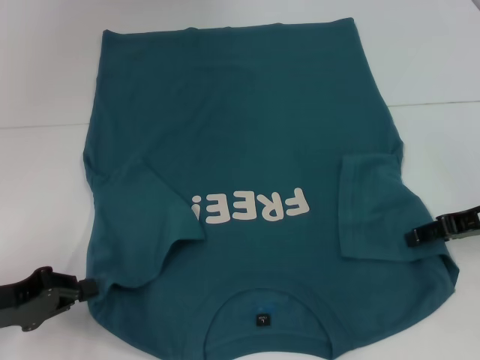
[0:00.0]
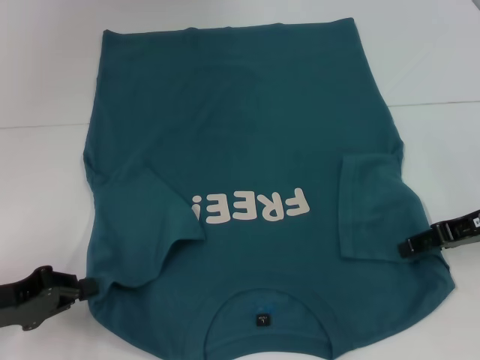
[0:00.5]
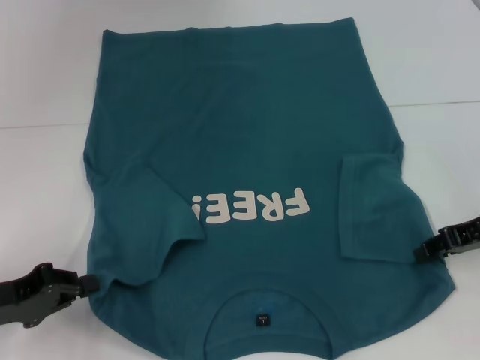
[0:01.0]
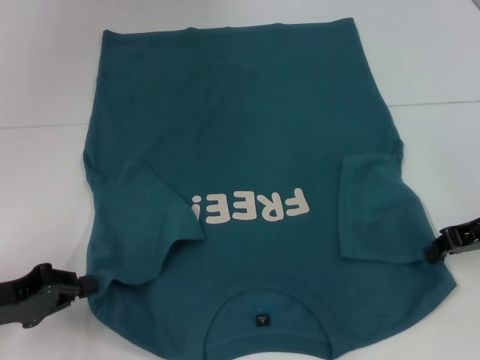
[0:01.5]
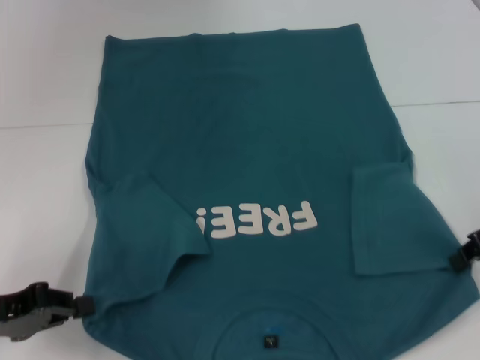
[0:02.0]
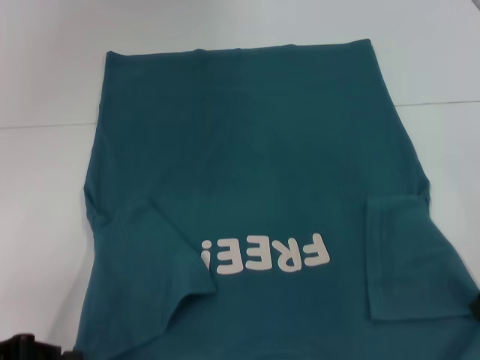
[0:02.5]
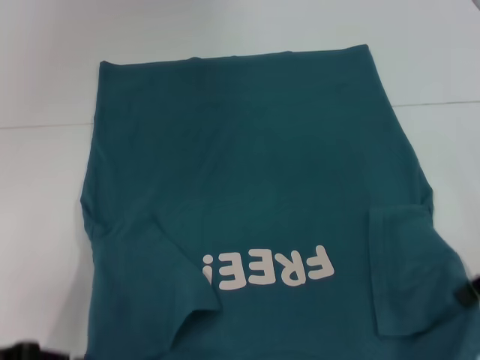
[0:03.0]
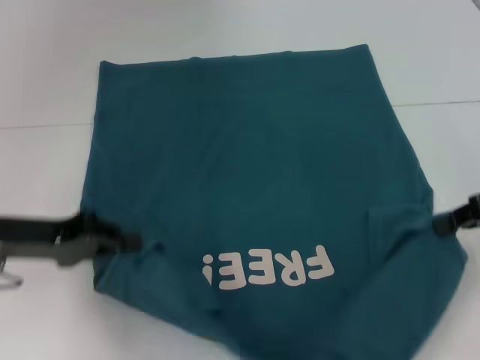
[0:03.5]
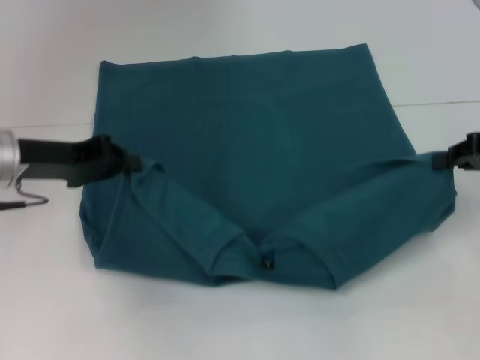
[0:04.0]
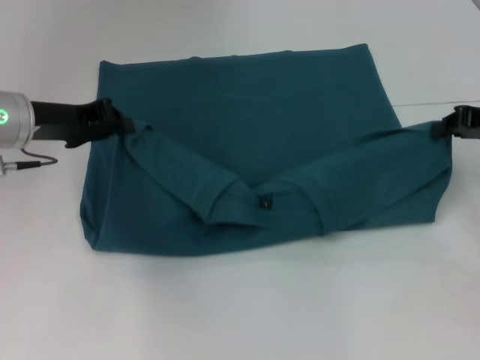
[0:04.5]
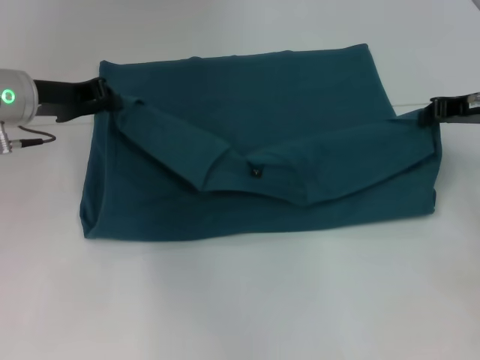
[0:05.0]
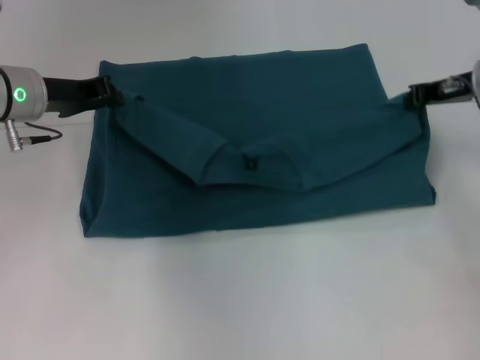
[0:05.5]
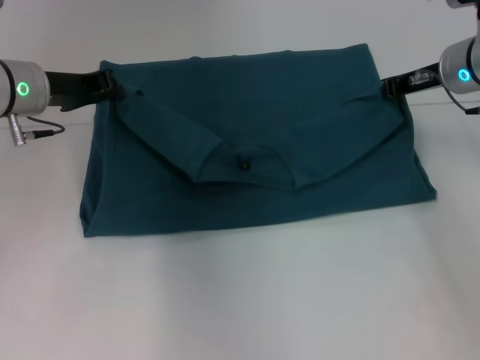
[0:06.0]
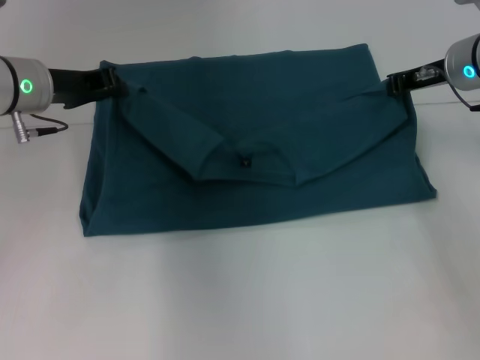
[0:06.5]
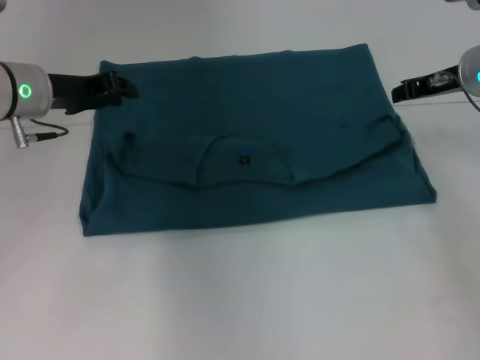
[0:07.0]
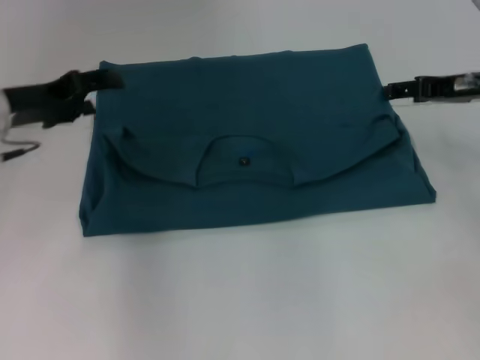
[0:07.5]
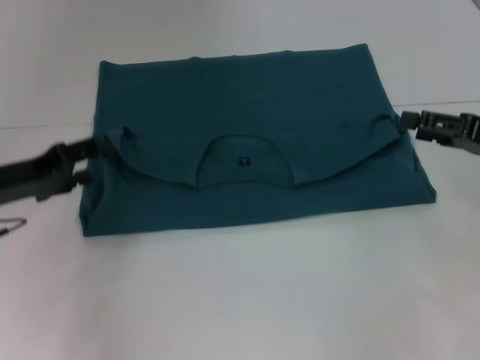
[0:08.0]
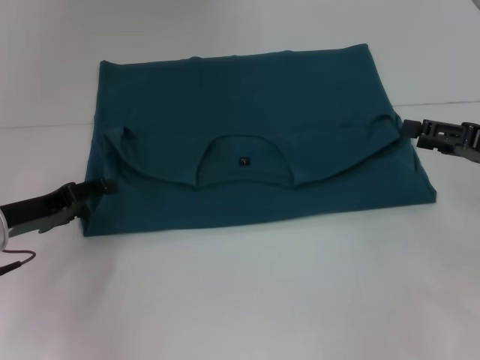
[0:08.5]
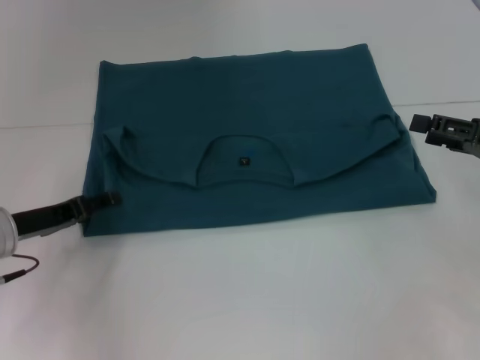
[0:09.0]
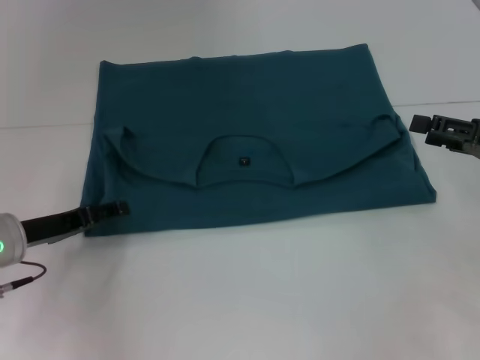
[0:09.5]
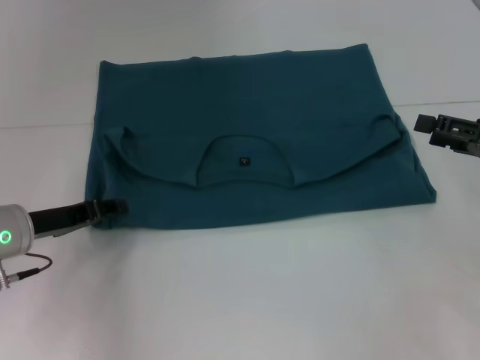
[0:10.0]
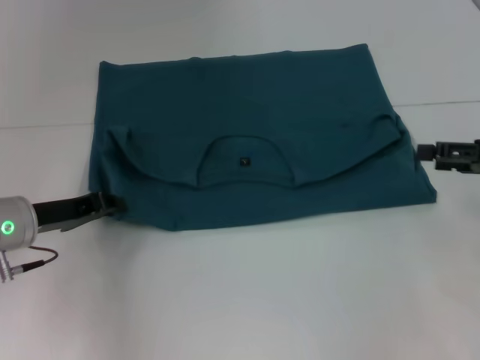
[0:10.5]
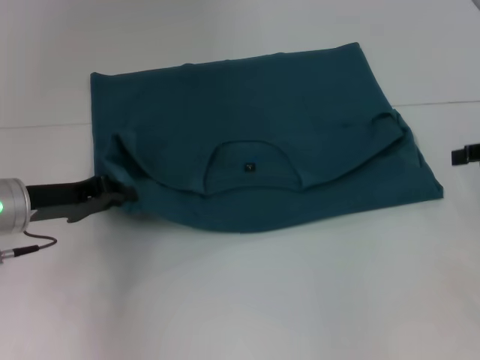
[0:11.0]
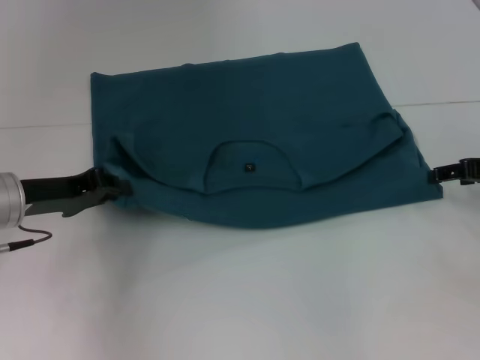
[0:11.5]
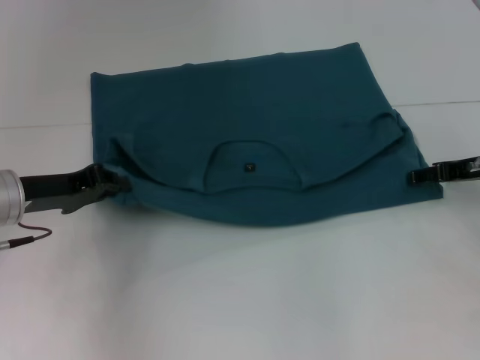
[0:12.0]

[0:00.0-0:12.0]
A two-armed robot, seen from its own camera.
Step, 2.0 to 6.5 s: Fold the clothes to the left.
Step, 2.0 to 6.5 s: Fold the clothes to the right.
0.0 to 2.0 s: The right gripper closes.
2.0 to 4.0 s: The left gripper goes about 15 cm forward, upward and to the right.
4.0 to 6.0 s: The right gripper travels forward and to the left by roughly 15 cm; the left gripper is displaced forward by approximately 5 cm.
6.0 to 8.0 s: The right gripper is displaced backward and to the right by about 15 cm, and opens; the left gripper moves backward, downward and to the left, approximately 15 cm, and opens up.
8.0 to 10.0 s: The left gripper shifts by roughly 5 cm.
10.0 to 12.0 s: The right gripper moves forward, some 5 cm, while the left gripper closes.

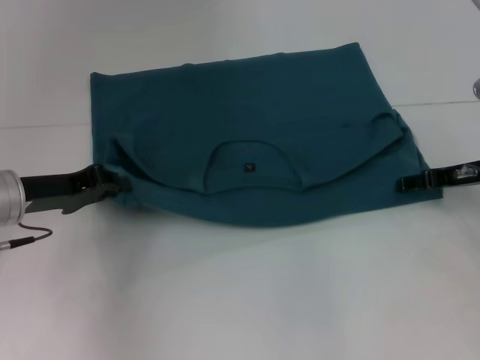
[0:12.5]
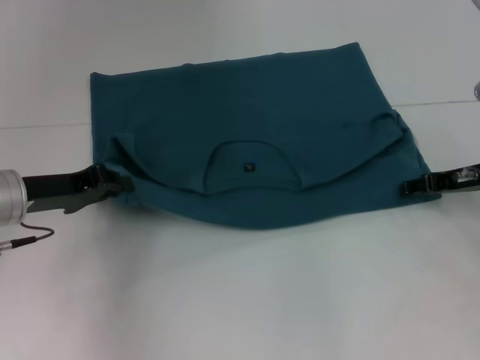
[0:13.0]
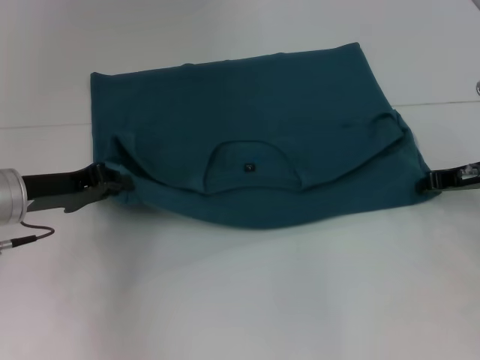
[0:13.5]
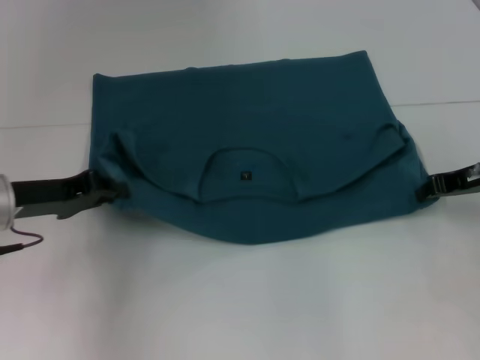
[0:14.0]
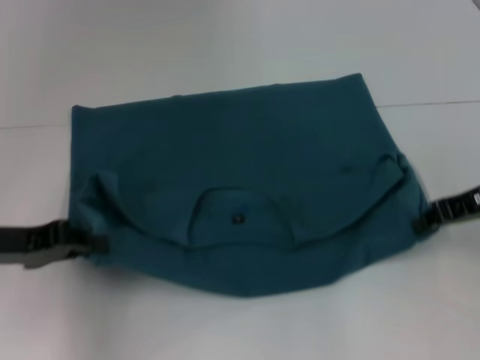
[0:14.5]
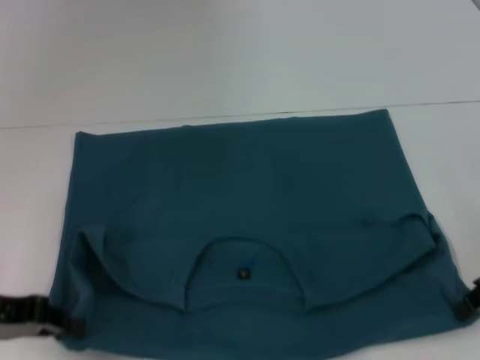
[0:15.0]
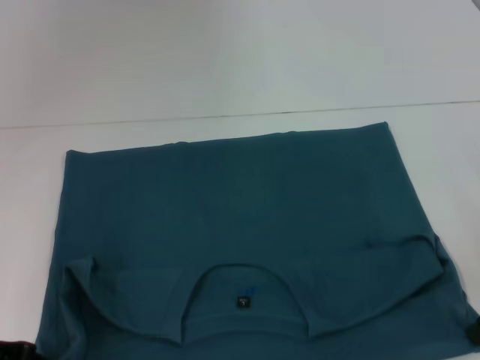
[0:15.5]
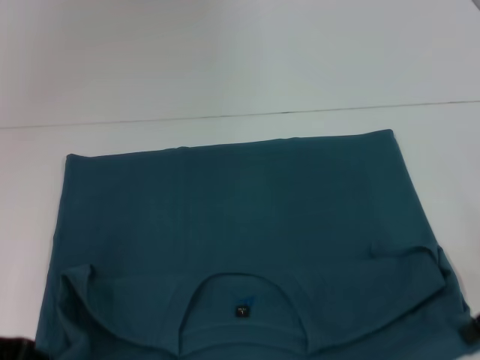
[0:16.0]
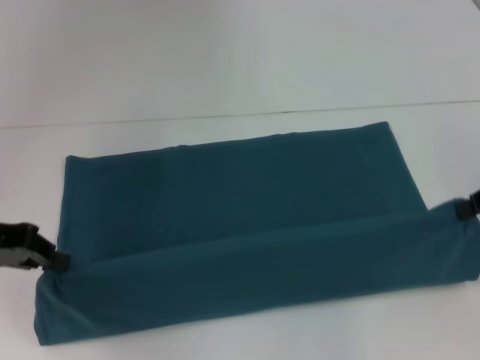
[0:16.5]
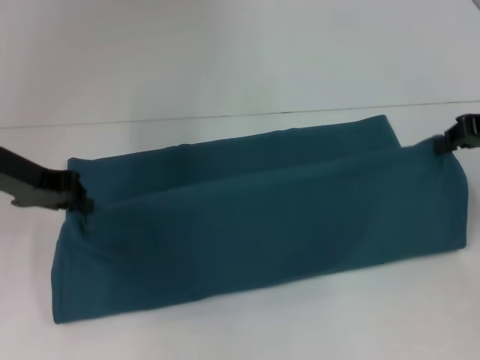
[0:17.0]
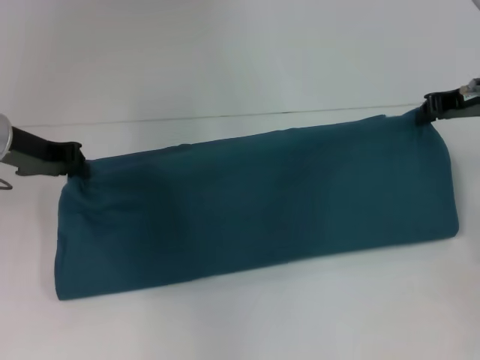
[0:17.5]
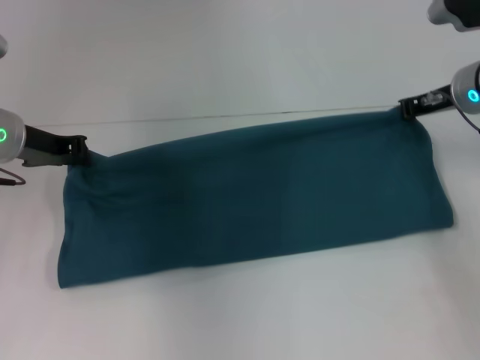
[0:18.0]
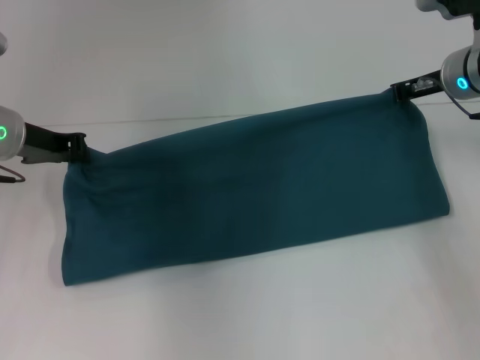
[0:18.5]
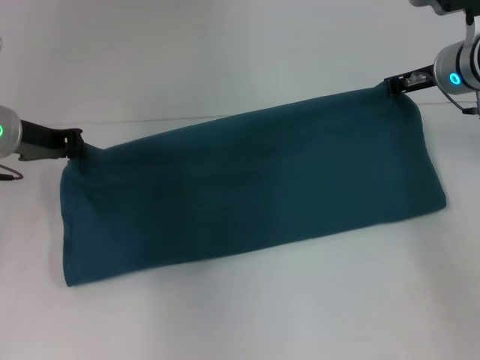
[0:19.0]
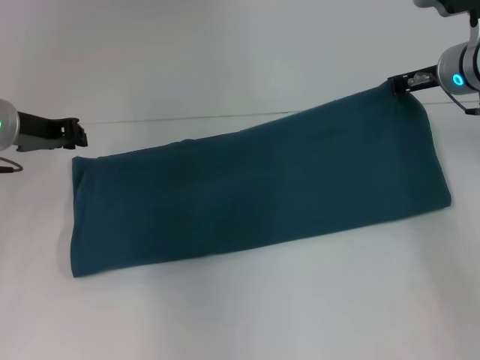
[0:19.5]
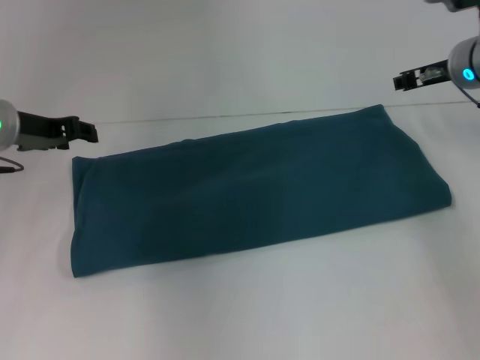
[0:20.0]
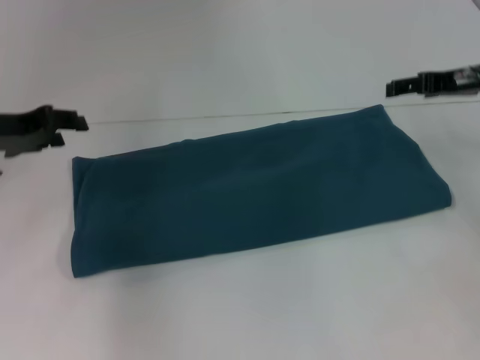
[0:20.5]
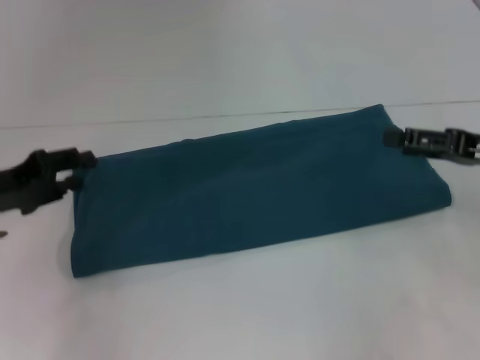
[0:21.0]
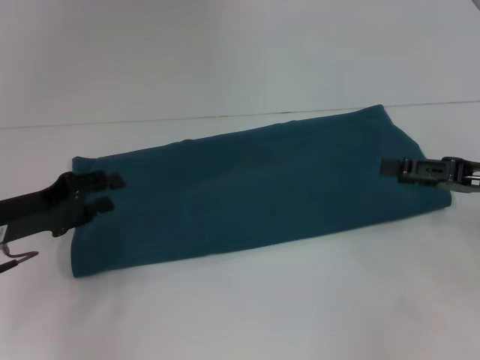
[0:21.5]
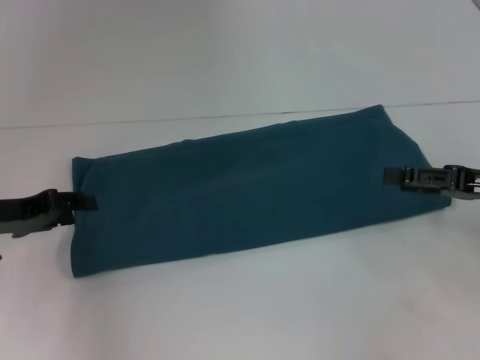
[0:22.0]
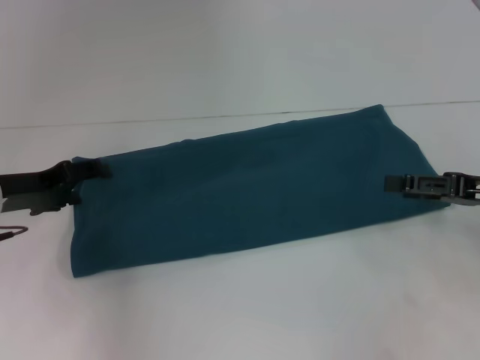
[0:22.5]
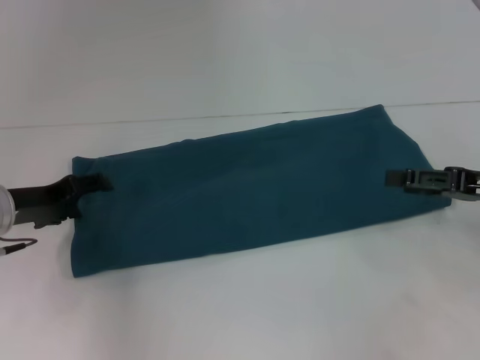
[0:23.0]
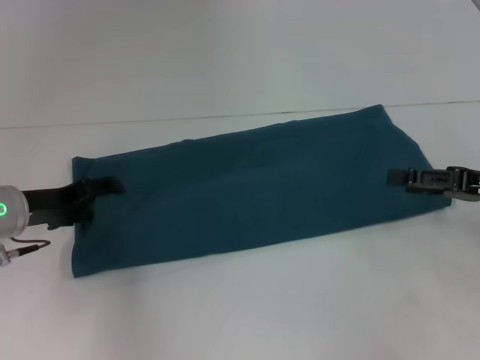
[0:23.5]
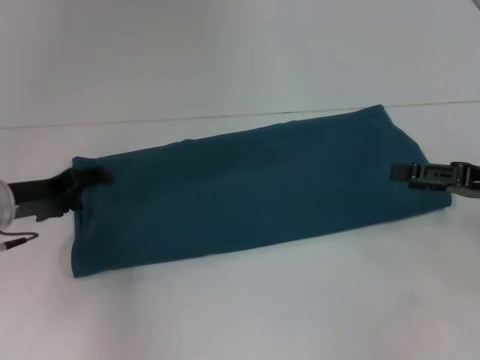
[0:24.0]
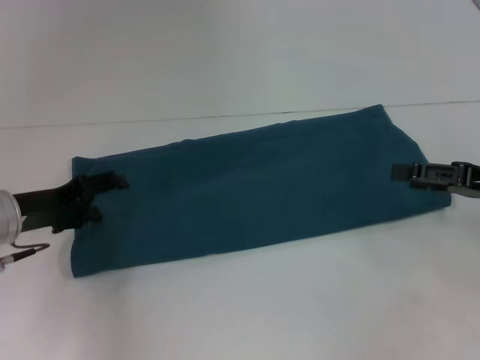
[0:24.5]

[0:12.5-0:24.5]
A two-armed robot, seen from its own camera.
Step, 12.5 to 14.5 s: Pull the clothes with your left hand.
Step, 12.5 to 14.5 s: Pull the clothes with your right hand.
Step, 15.0 to 19.5 s: Fold the clothes to the right.
12.5 to 14.5 s: The right gripper moves upward, roughly 5 cm, and closes its fingers. Meanwhile the left gripper is displaced backward by roughly 5 cm.
14.5 to 16.5 s: The right gripper ends up roughly 5 cm from where it was. The left gripper shifts by approximately 5 cm.
16.5 to 18.5 s: The left gripper goes approximately 10 cm forward and to the right, while the right gripper moves forward and to the left, roughly 15 cm.
18.5 to 20.5 s: The left gripper shifts by roughly 5 cm, and opens its fingers; the right gripper changes place by some 5 cm, and opens its fingers.
20.5 to 22.5 s: The left gripper heads downward, covering approximately 5 cm; the right gripper goes roughly 15 cm backward and downward.
22.5 to 24.5 s: The grippers stay close to where they were, moving slightly.

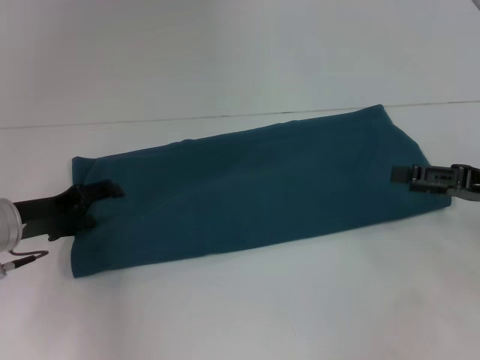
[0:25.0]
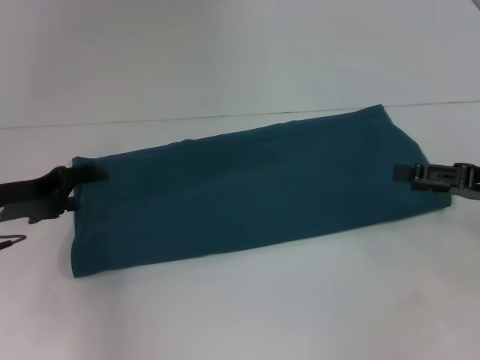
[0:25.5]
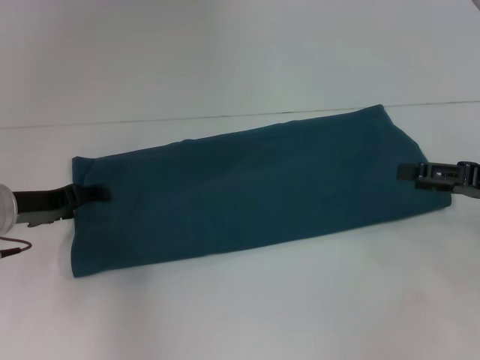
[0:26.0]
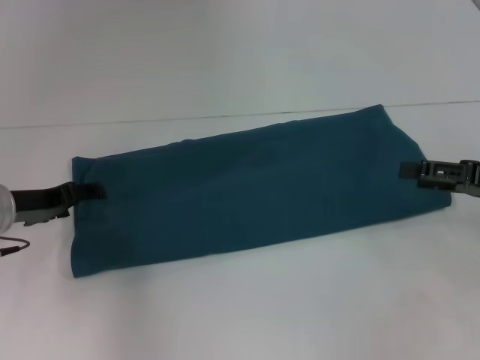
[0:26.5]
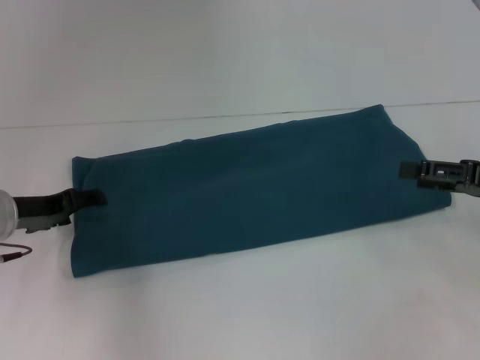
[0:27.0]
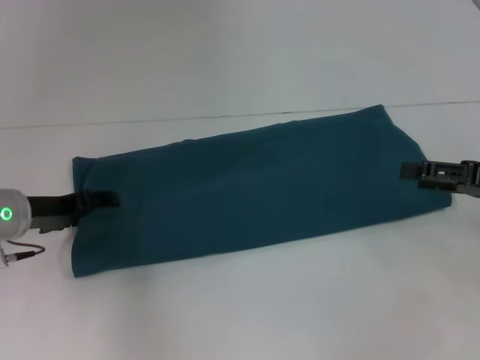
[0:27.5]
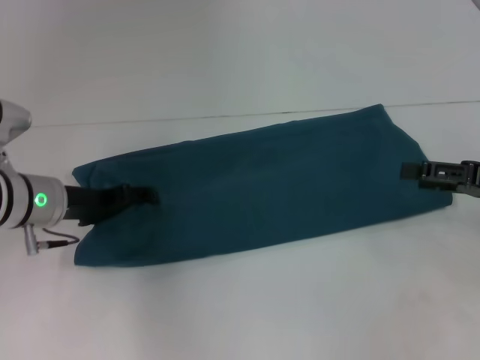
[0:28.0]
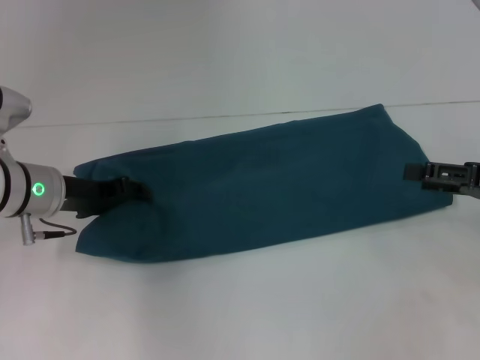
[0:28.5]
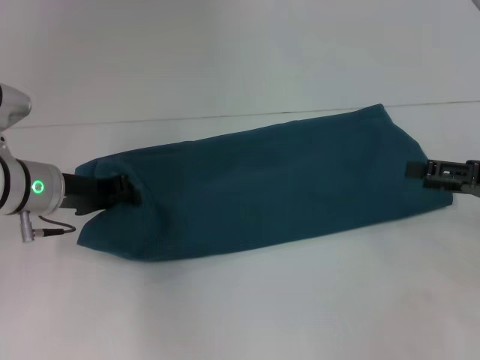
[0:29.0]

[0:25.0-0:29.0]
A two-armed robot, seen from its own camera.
25.0 to 27.0 s: The grippers make only small movements.
27.0 to 29.0 s: The left gripper moves roughly 5 cm, and closes.
